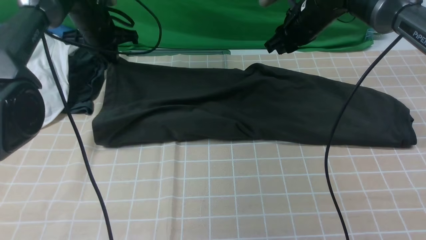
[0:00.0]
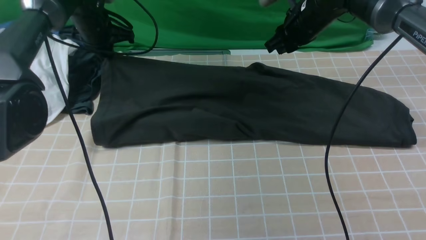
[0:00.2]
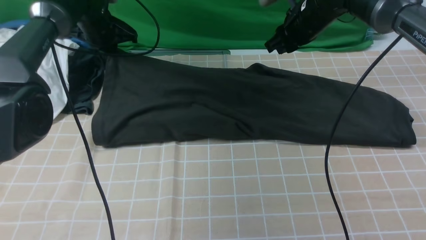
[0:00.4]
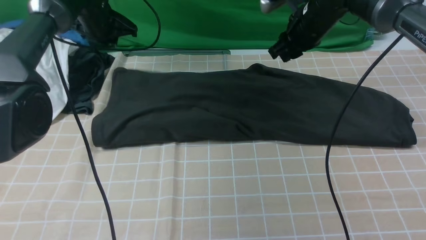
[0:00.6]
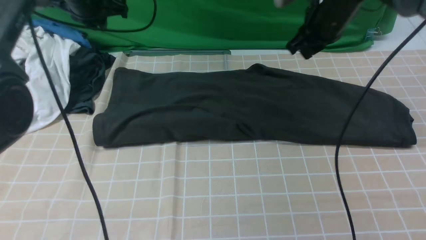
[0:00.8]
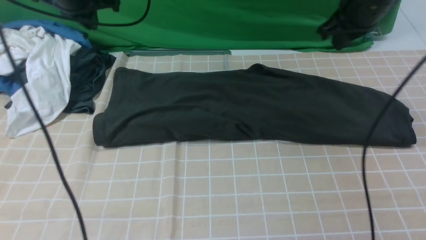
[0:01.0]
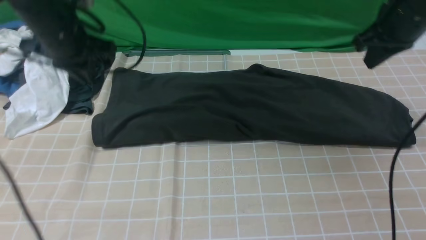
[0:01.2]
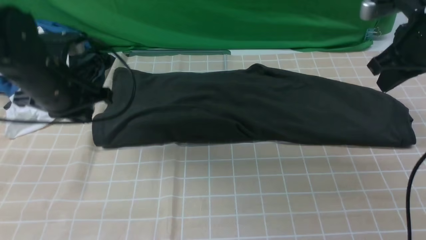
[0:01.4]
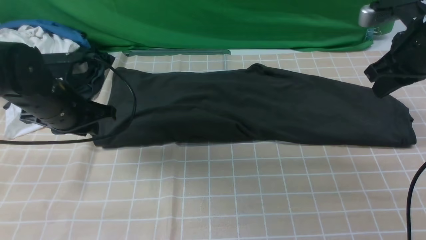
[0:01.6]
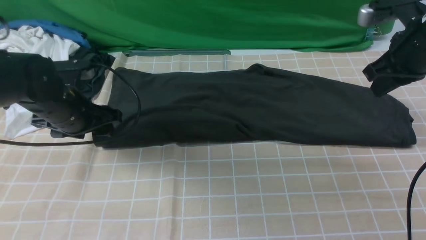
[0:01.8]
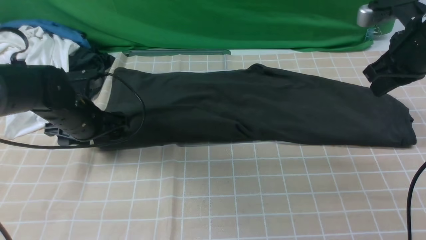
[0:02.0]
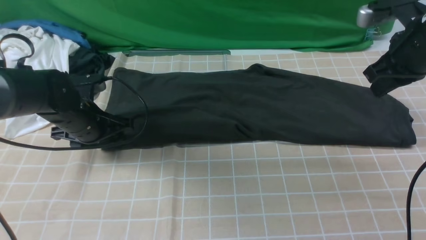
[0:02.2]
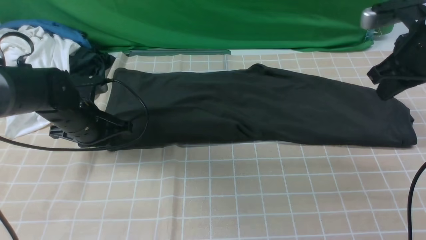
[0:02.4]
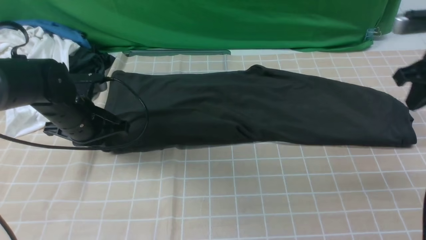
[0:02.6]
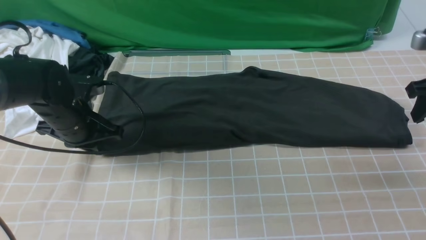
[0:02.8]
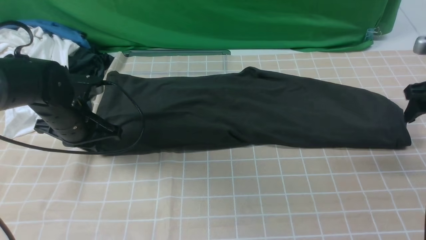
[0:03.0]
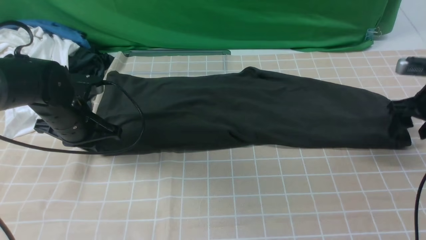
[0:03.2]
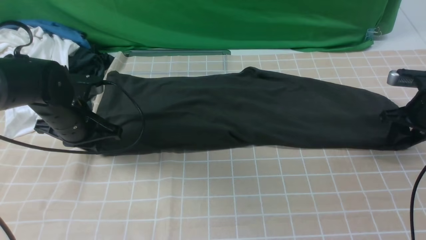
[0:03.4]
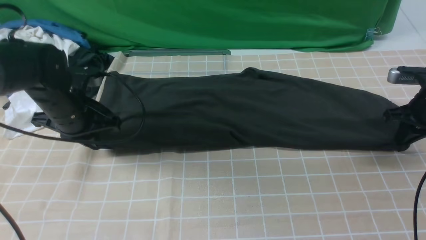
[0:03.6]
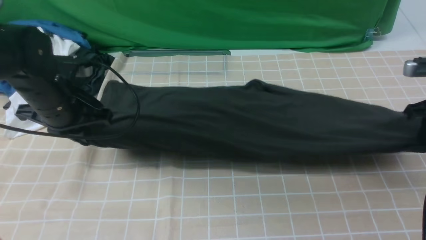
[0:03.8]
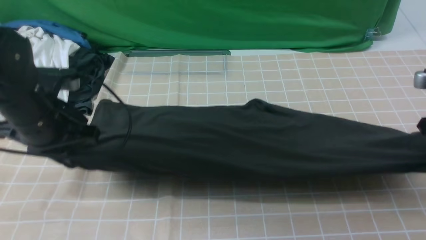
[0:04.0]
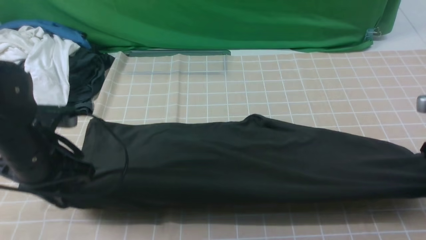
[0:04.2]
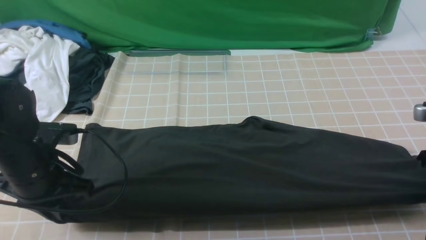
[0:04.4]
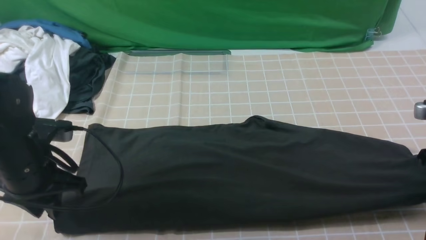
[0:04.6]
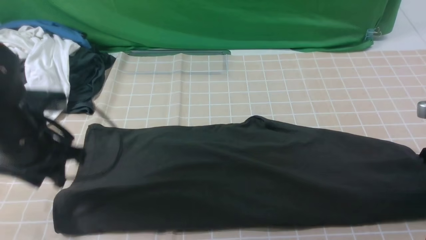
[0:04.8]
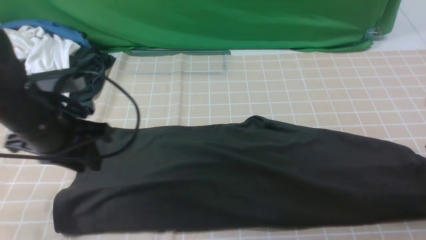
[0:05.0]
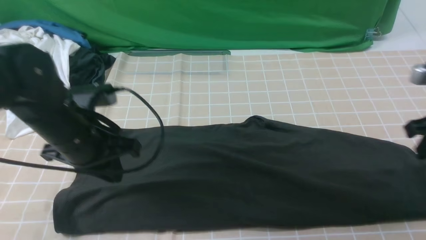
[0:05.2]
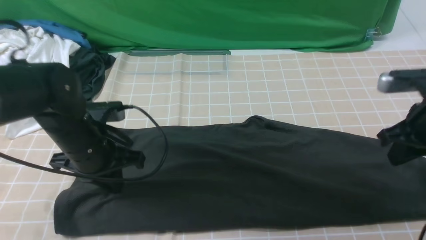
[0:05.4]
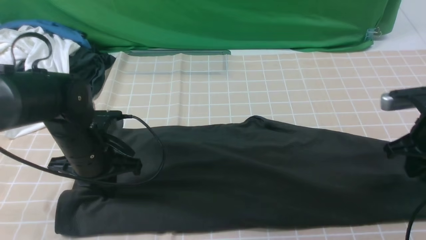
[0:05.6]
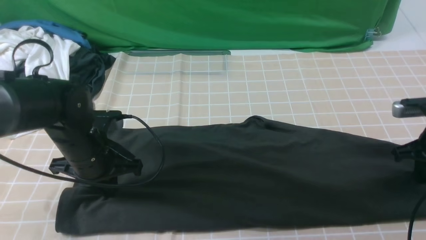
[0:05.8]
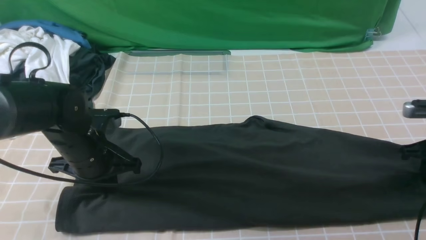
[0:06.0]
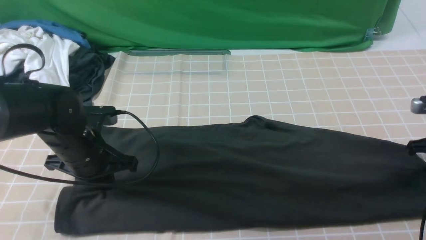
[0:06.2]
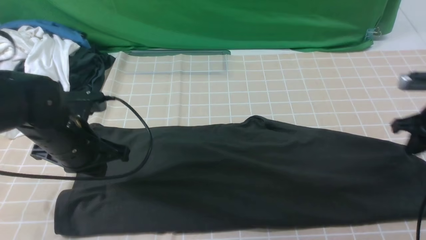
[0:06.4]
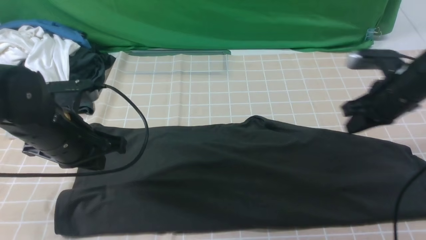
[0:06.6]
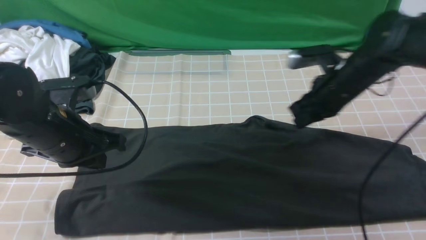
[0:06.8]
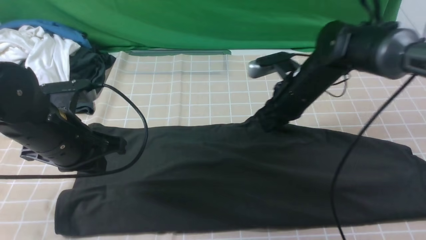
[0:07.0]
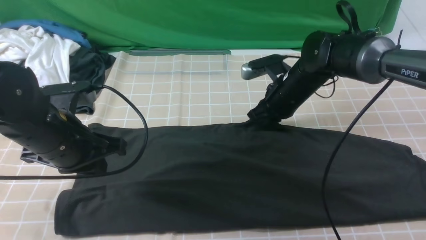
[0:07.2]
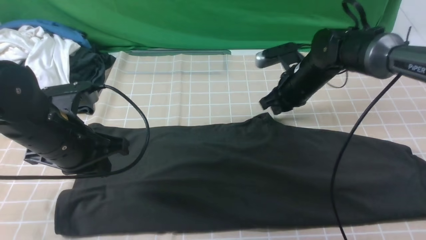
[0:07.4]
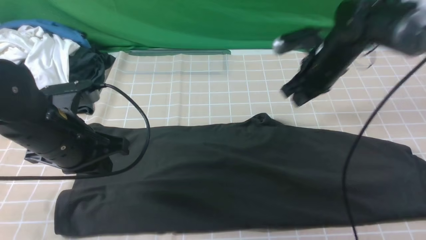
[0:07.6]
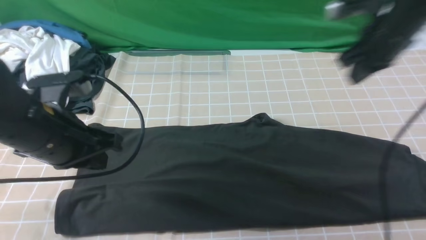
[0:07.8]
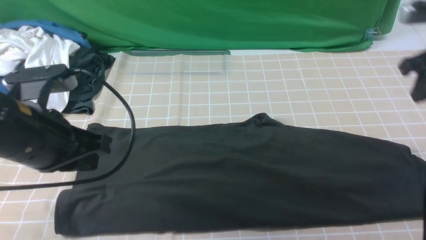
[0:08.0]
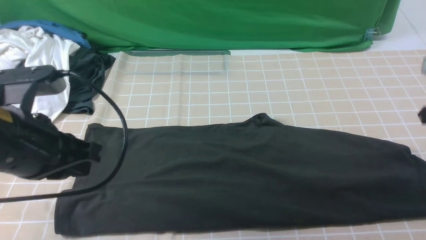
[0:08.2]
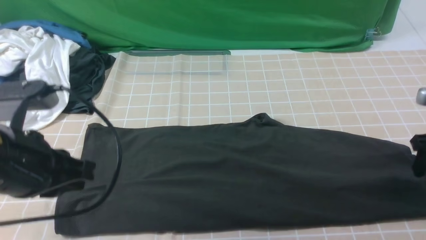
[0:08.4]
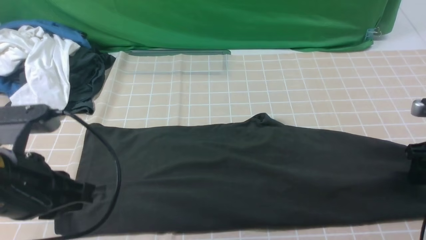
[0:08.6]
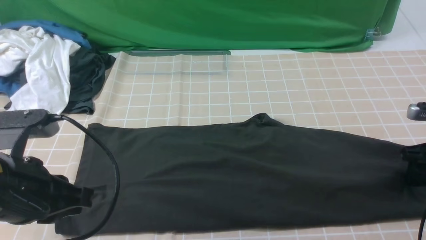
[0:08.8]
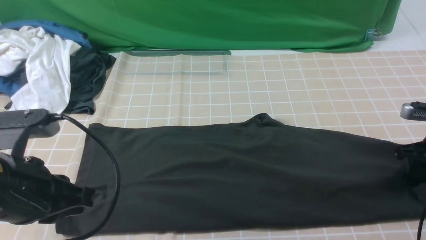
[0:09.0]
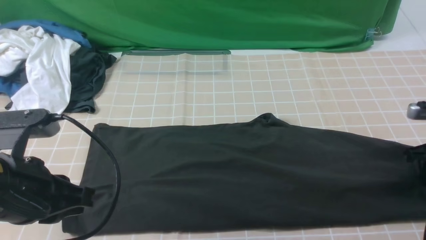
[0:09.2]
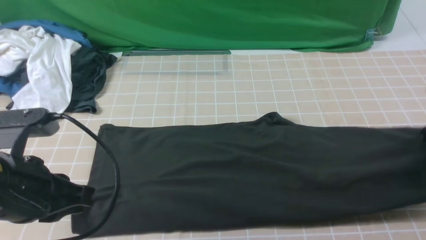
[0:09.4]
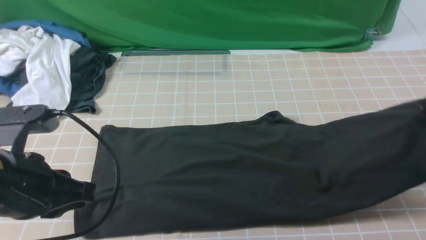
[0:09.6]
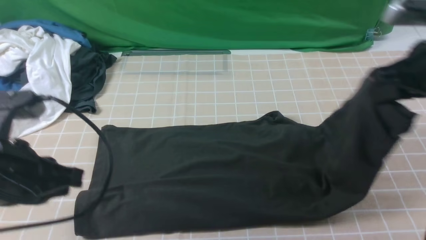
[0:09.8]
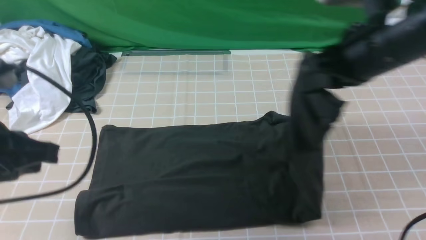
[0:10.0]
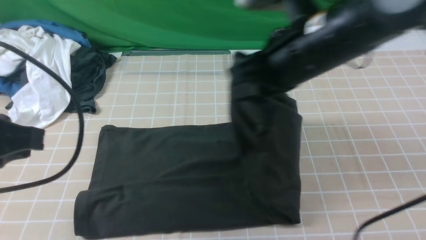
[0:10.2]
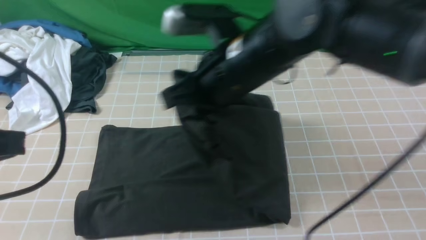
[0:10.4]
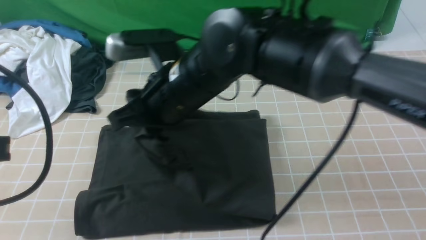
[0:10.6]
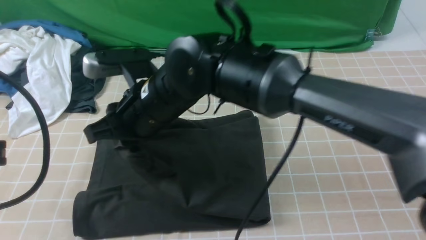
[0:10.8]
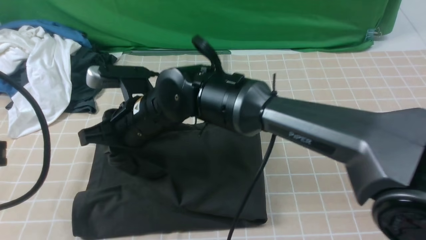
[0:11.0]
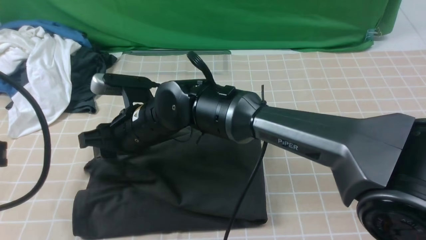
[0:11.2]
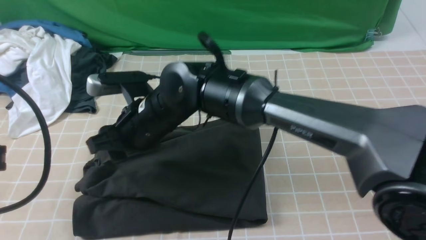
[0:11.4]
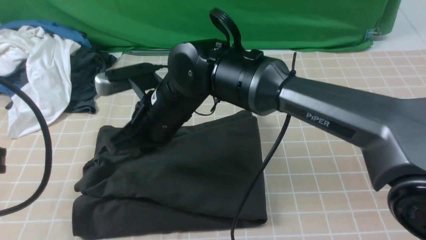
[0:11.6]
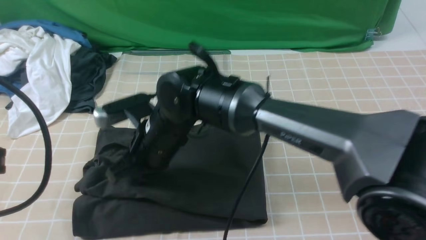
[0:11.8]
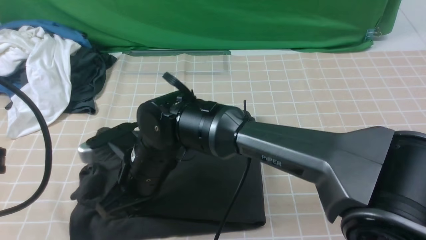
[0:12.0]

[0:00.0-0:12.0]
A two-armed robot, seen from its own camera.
Step, 0:00.0 to 0:09.0: use the right arm to clamp the right edge of the fabric.
Step, 0:09.2 to 0:11.2: use the right arm to drag the right edge of the fabric to the left and folds it over the left edge.
0:00.0 to 0:01.6: The left gripper shifts about 20 cm backward, and opens. Meanwhile the right gripper travels backward and to the right by approximately 20 cm, and closes up.
0:01.6 to 0:03.0: The left gripper closes. The right gripper heads to the right and downward, covering approximately 15 cm, and opens its fingers.
0:03.0 to 0:04.4: Both grippers travel together backward, about 10 cm. The right gripper closes up.
0:04.4 to 0:06.0: The right gripper shifts by approximately 5 cm. The left gripper moves about 10 cm.
0:06.0 to 0:07.6: The left gripper heads upward, covering approximately 10 cm, while the right gripper moves to the left, forward and upward, about 20 cm.
0:07.6 to 0:09.0: The right gripper goes some 20 cm to the right, backward and downward, and opens, then closes once more, while the left gripper heads backward, covering about 10 cm.
0:09.0 to 0:10.4: The right gripper moves to the left and upward, approximately 40 cm. The left gripper moves upward, approximately 10 cm.
0:10.4 to 0:12.0: The right gripper goes about 20 cm downward and to the left, and opens, then closes once more.

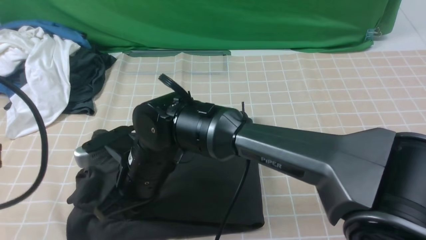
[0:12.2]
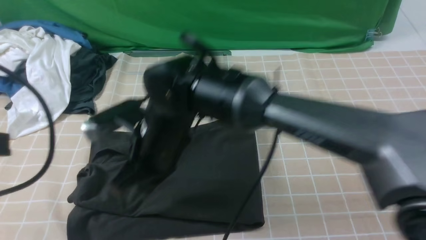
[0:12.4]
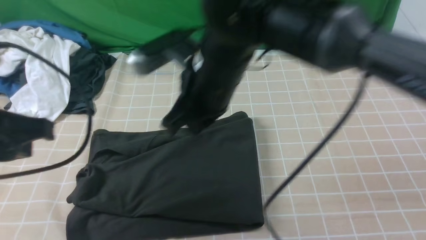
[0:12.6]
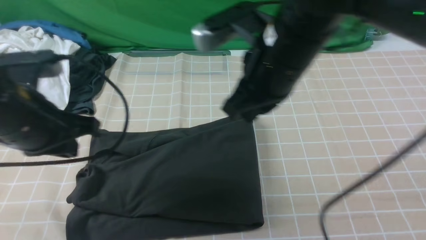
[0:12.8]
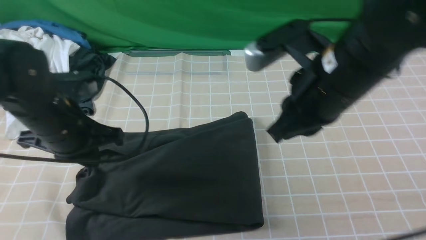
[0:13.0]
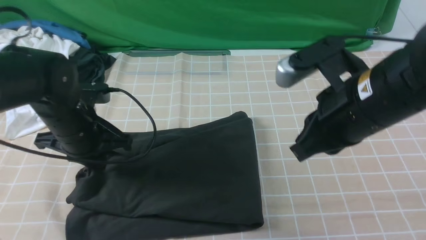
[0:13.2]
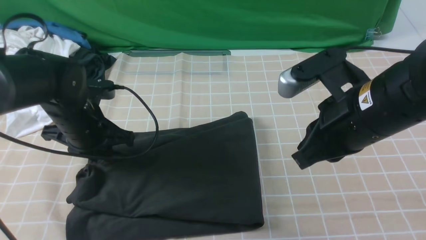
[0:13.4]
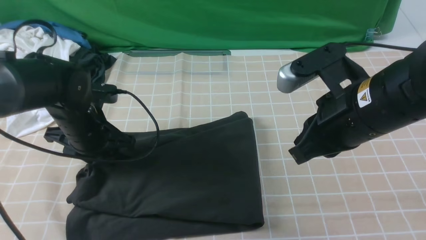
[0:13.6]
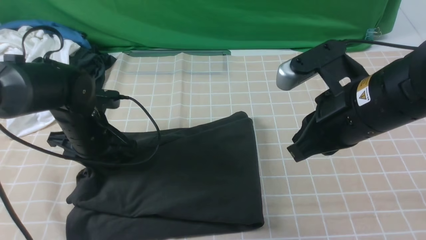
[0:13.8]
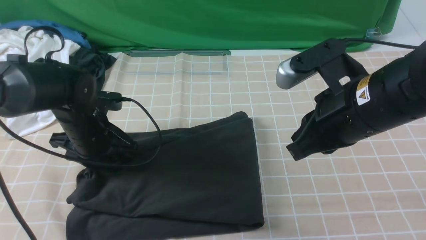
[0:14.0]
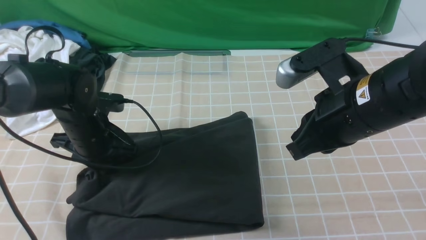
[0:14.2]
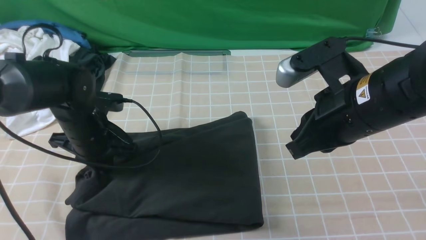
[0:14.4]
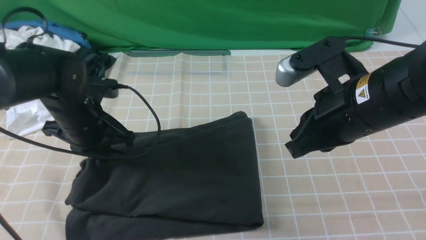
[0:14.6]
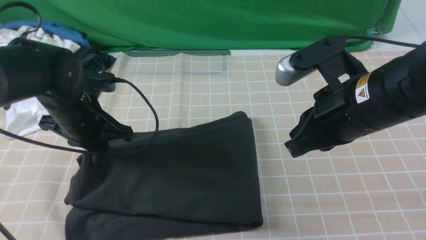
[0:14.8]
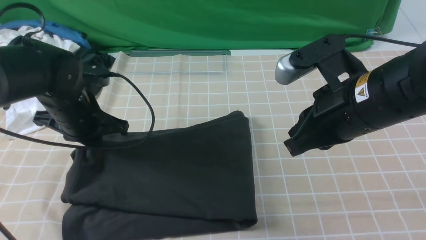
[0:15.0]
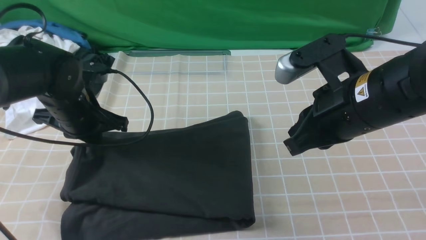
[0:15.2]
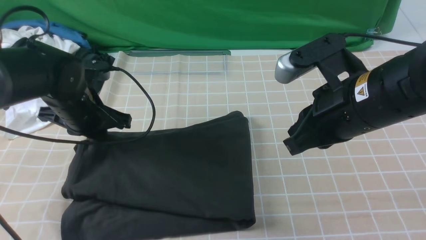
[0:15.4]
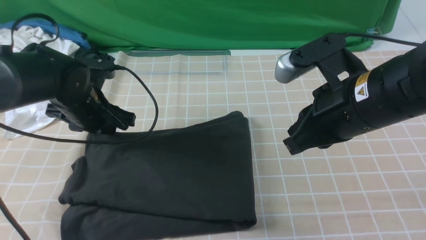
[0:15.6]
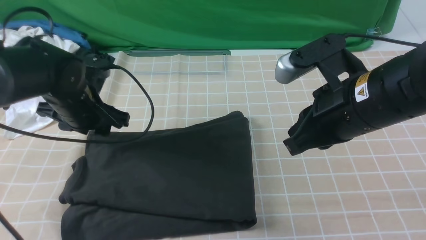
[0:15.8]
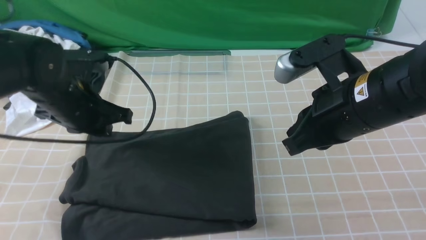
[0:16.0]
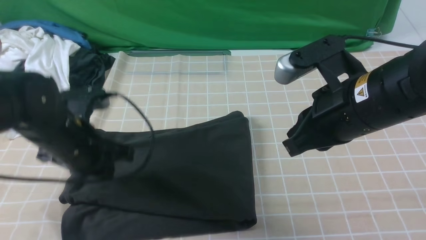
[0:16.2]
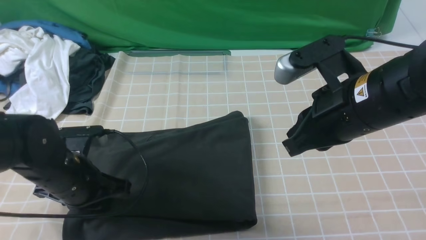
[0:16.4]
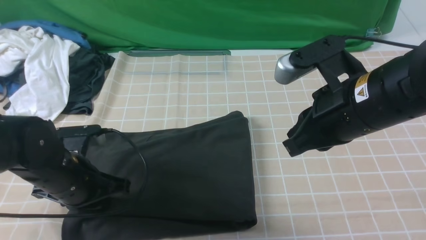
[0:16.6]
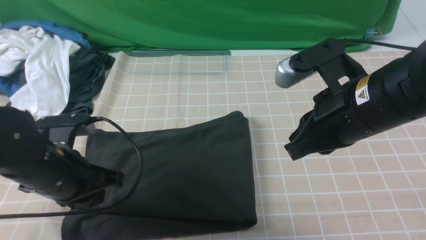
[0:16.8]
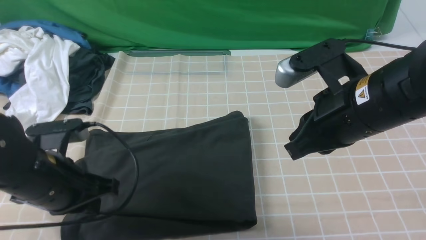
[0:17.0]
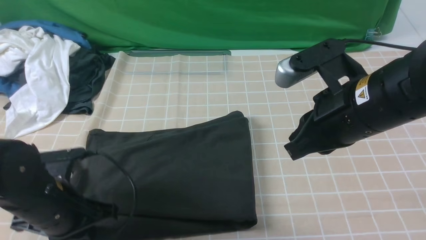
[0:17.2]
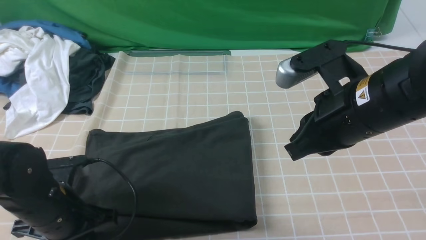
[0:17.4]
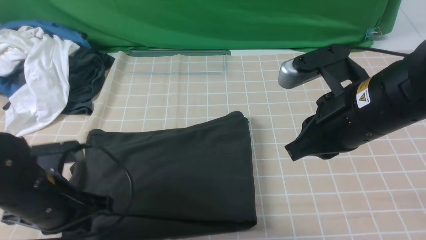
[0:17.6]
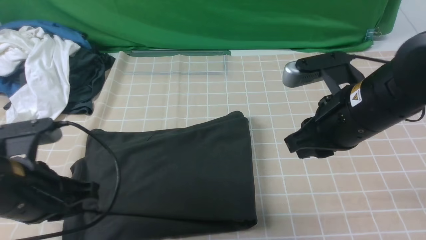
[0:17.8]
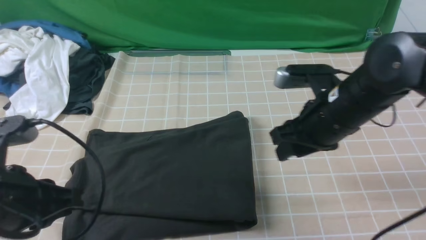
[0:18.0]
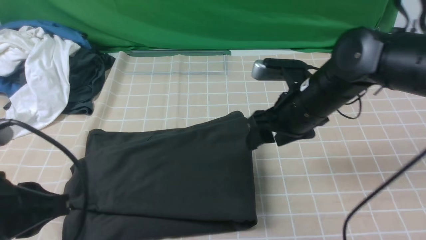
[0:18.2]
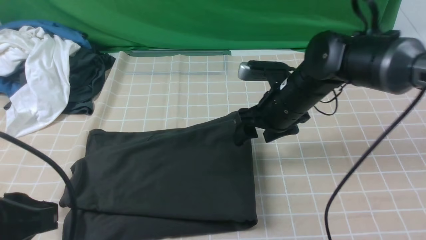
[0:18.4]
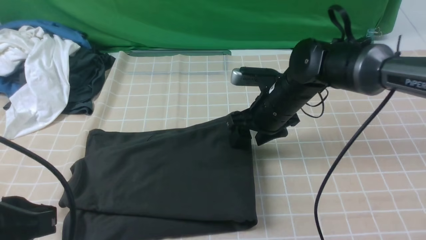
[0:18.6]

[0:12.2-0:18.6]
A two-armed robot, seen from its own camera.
0:12.2 to 0:13.8: The right gripper goes roughly 25 cm to the right and upward; the left gripper goes approximately 30 cm forward and downward, and opens up.
0:13.8 to 0:15.4: The left gripper closes its fingers.
0:15.4 to 0:17.0: The left gripper is displaced backward by approximately 15 cm.
0:17.0 to 0:18.6: The left gripper heads backward and upward, covering roughly 15 cm. The right gripper heads forward and downward, covering some 20 cm, and opens up.
